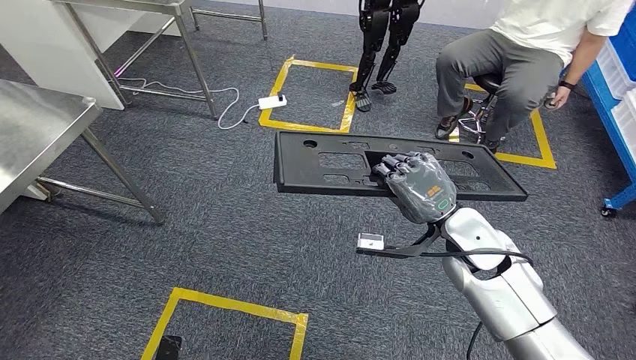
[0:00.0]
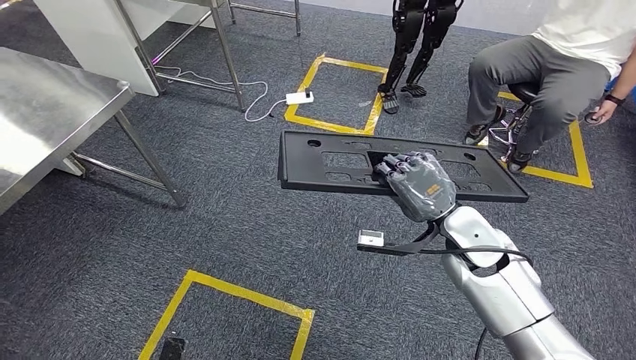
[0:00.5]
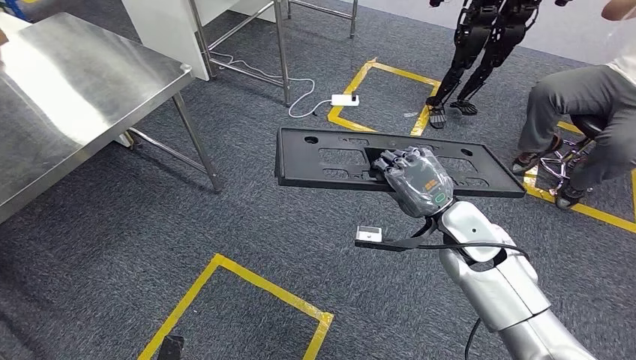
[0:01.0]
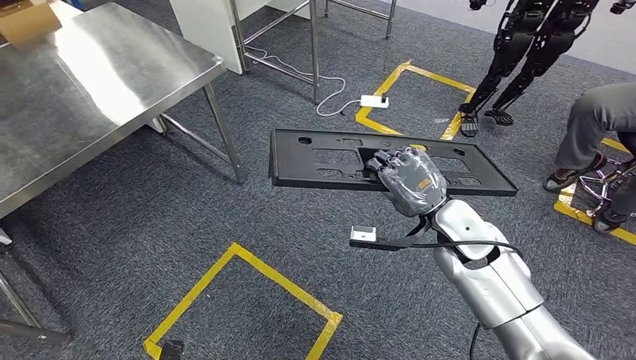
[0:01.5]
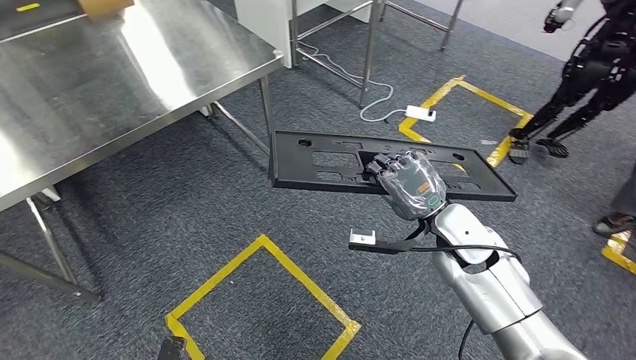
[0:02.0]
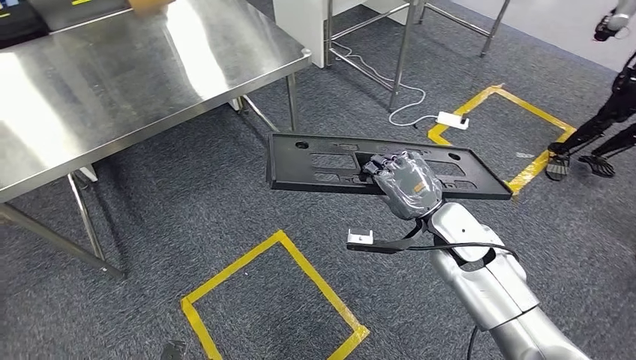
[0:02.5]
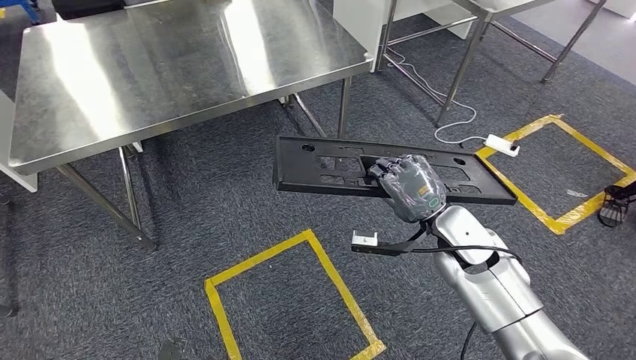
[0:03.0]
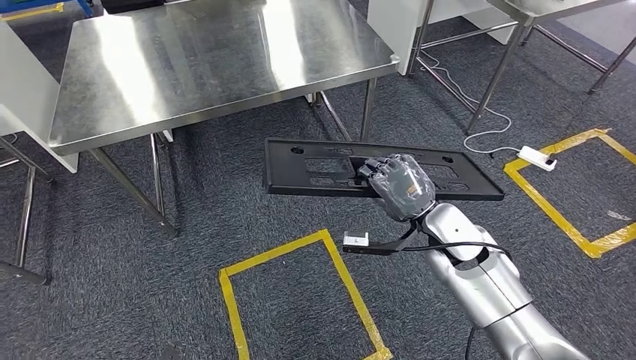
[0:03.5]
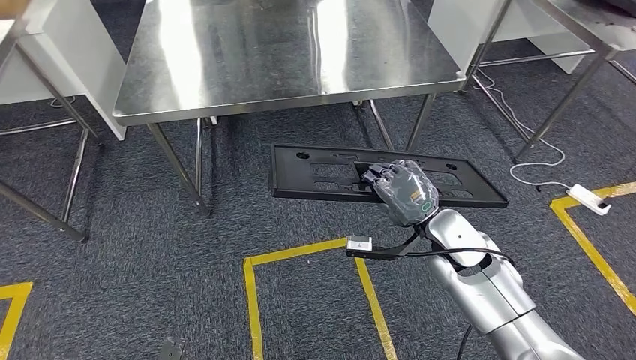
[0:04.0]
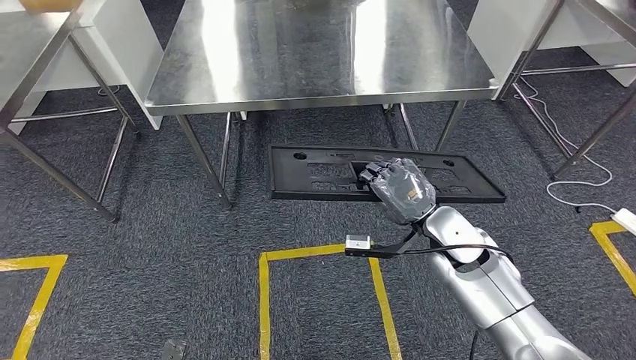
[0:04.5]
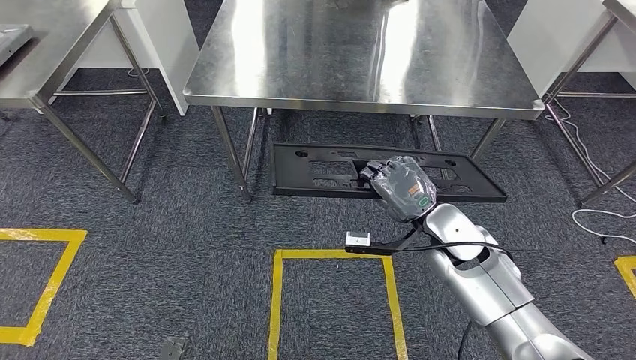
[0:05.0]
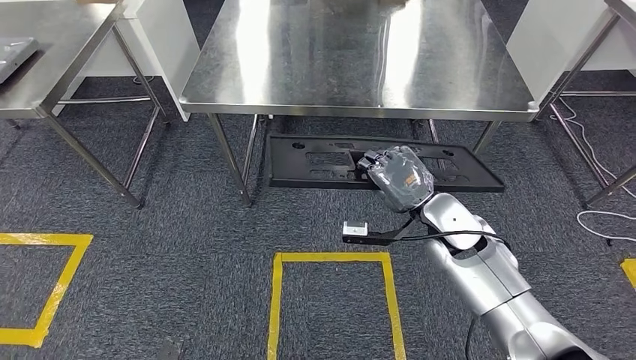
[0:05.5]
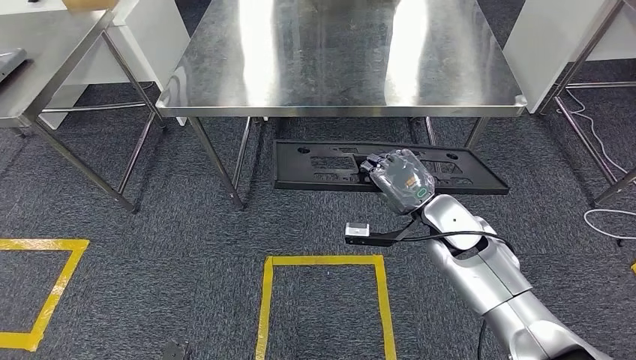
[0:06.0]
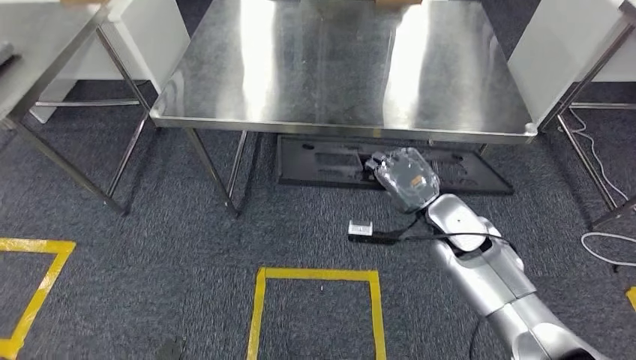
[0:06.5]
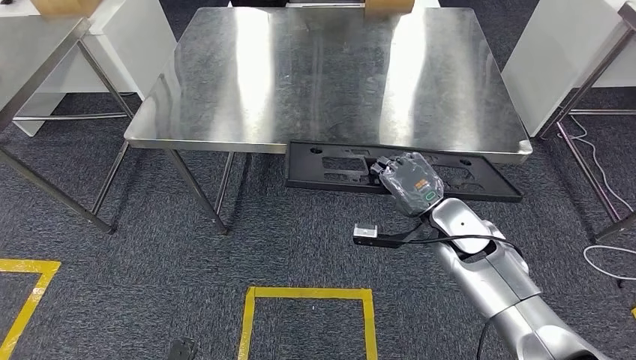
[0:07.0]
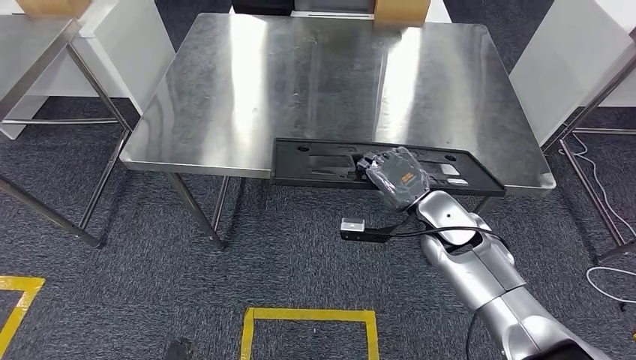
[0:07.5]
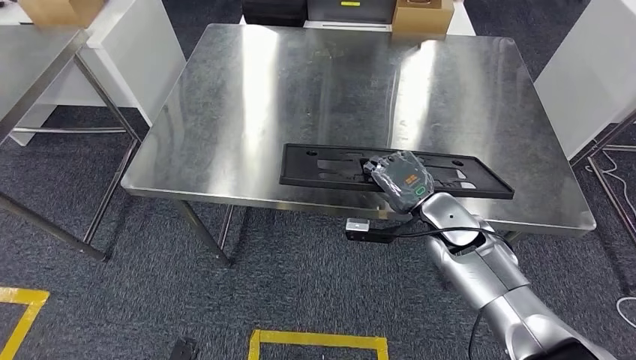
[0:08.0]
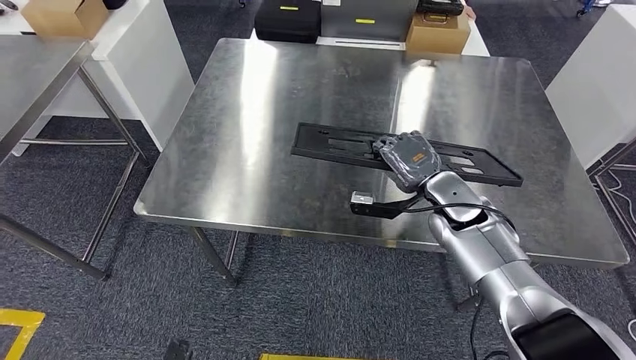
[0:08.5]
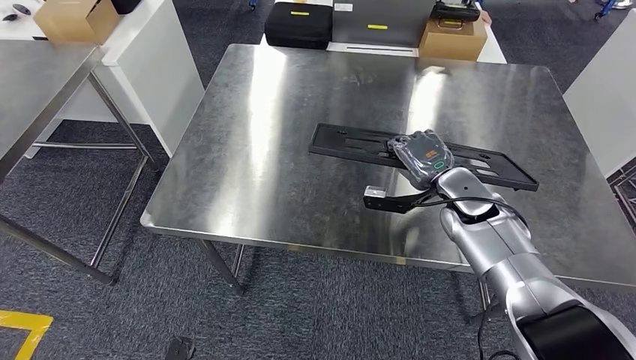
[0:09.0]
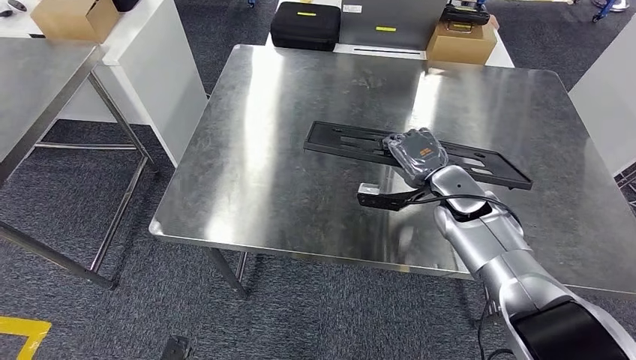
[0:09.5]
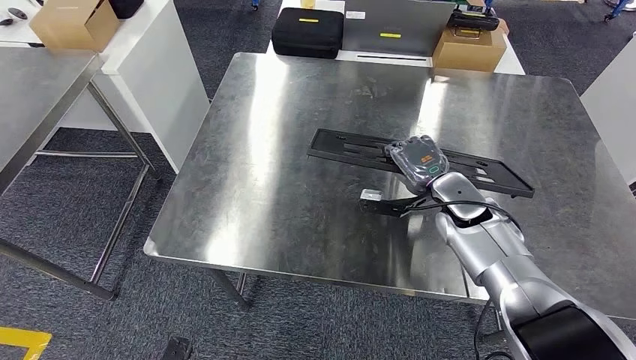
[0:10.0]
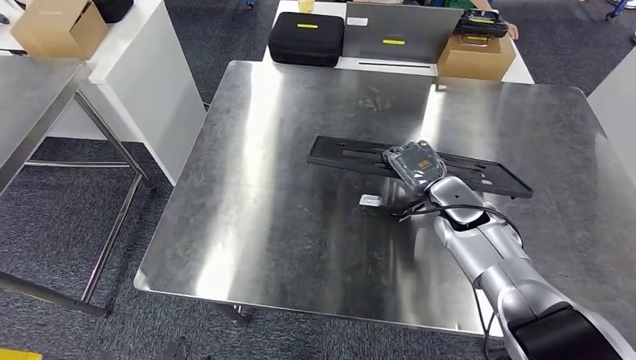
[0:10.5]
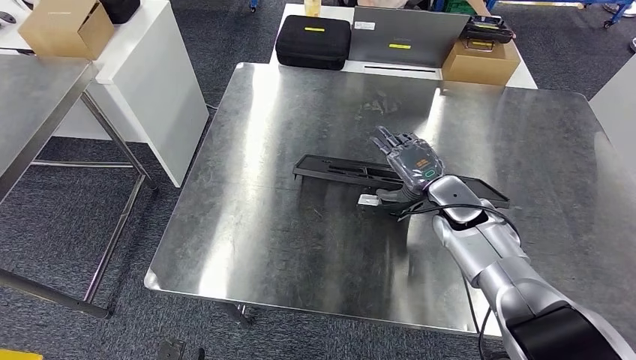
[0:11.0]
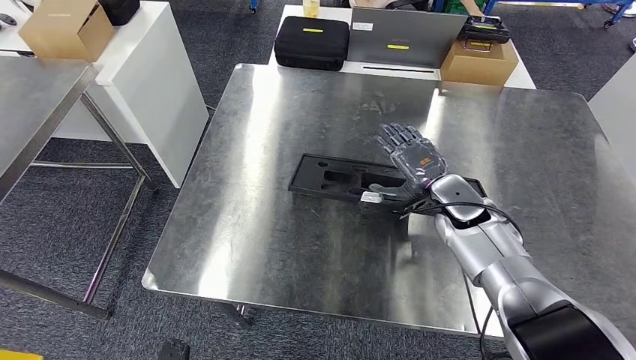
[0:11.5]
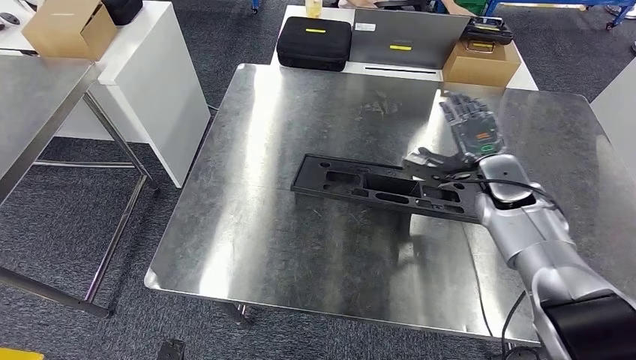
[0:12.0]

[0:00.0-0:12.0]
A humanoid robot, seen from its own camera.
Step, 0:00.0 to 0:07.5: Move the large material to the workbench.

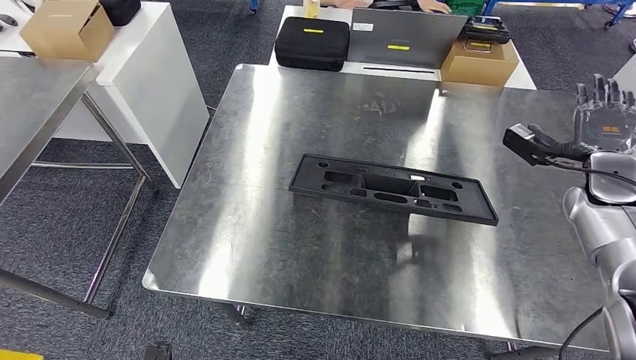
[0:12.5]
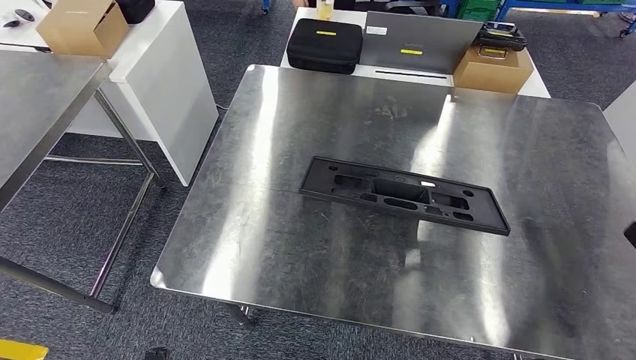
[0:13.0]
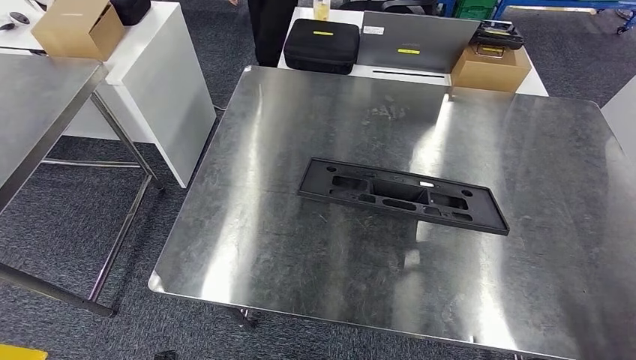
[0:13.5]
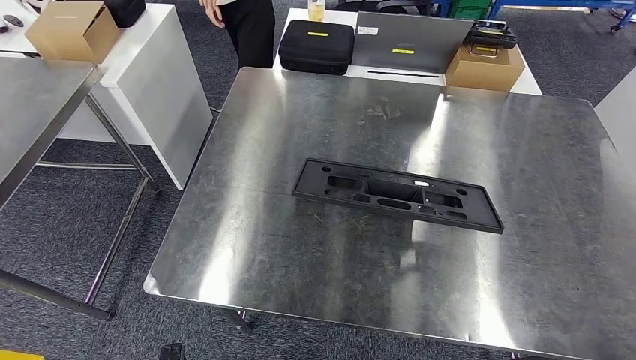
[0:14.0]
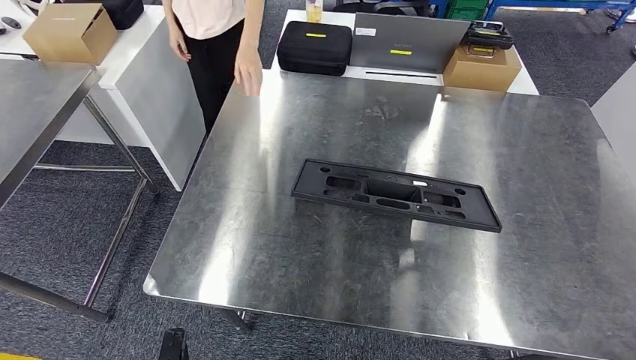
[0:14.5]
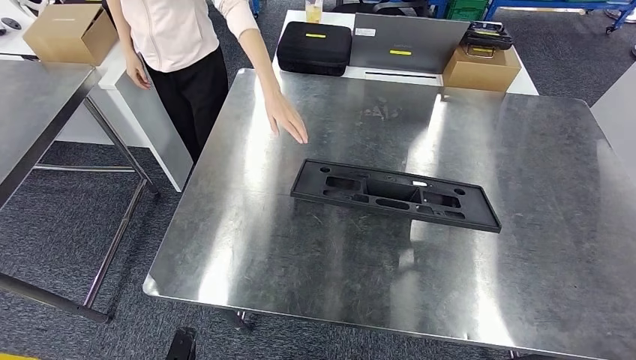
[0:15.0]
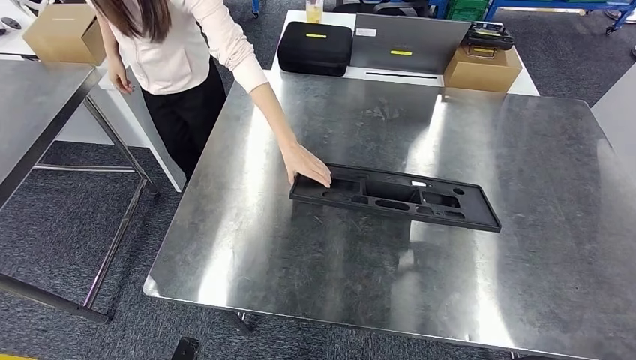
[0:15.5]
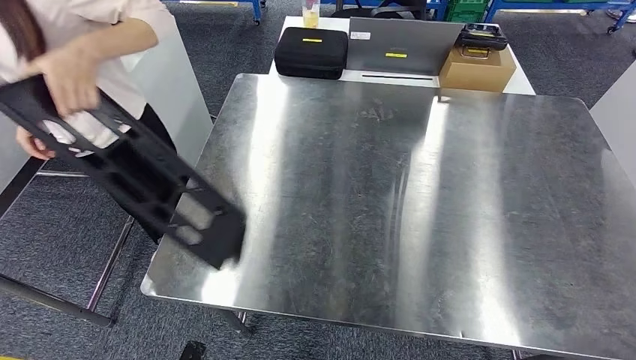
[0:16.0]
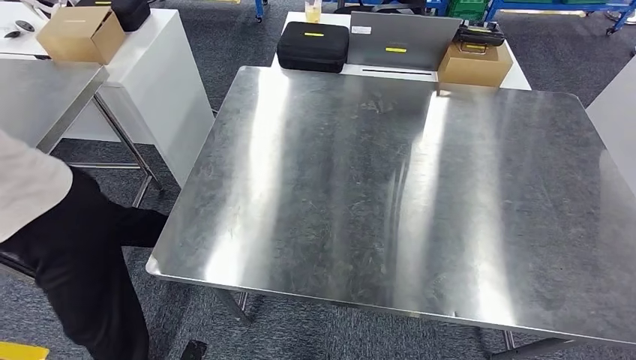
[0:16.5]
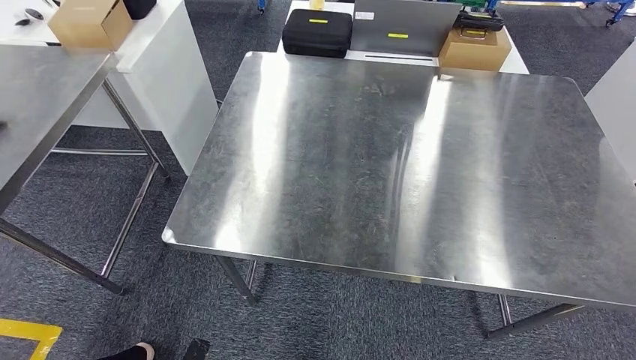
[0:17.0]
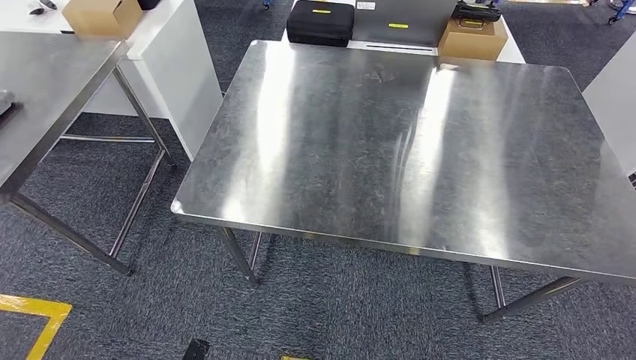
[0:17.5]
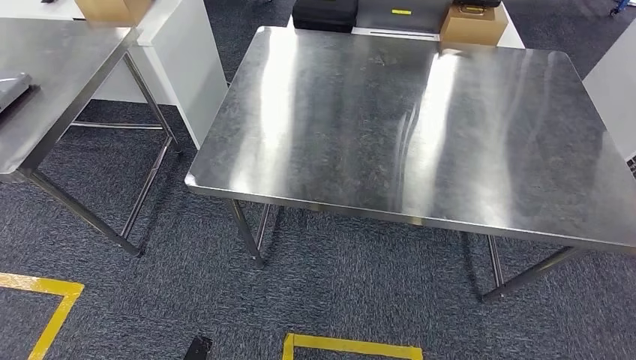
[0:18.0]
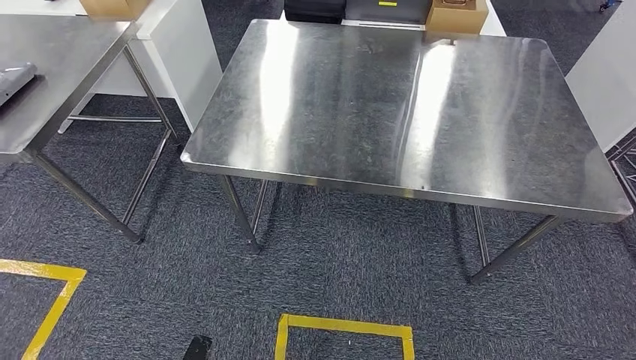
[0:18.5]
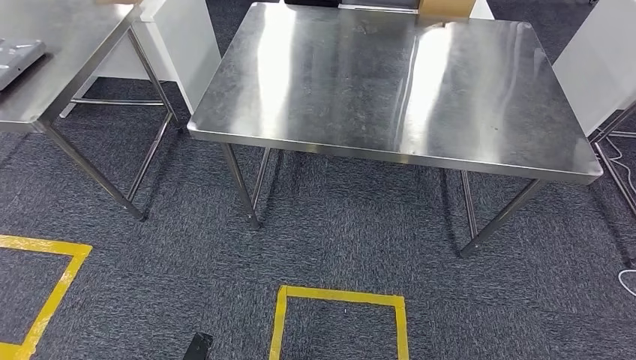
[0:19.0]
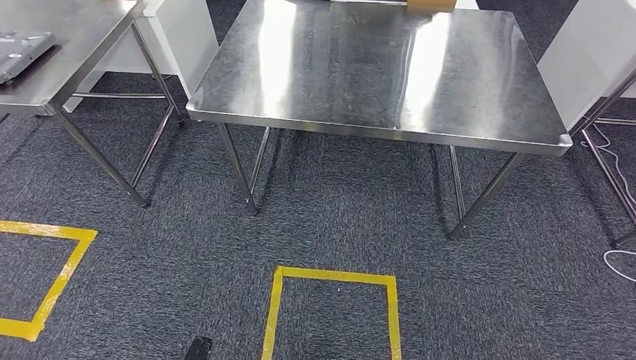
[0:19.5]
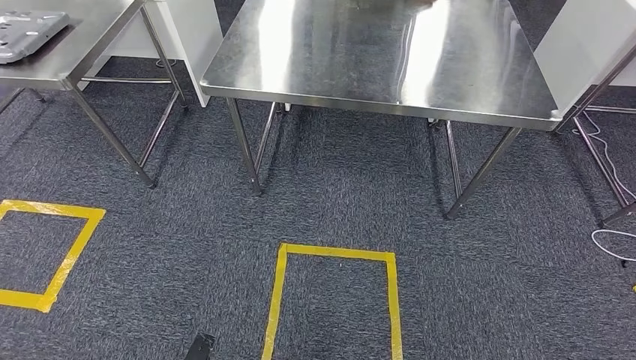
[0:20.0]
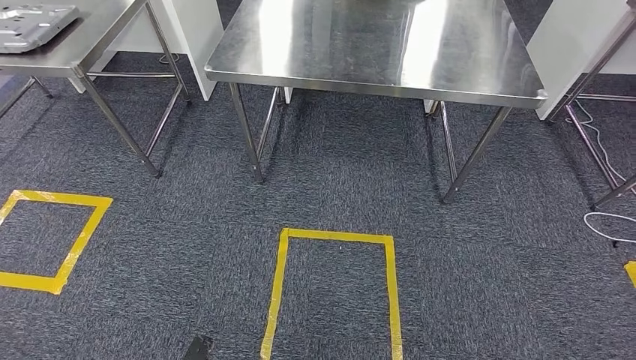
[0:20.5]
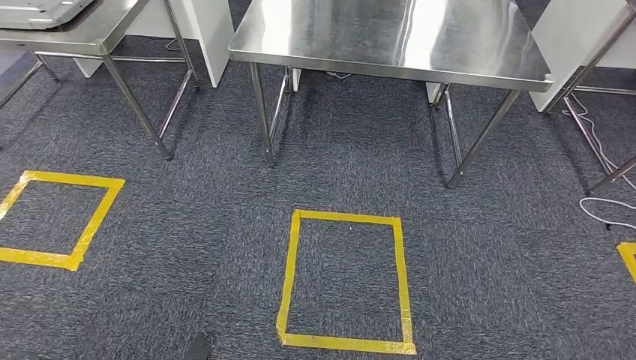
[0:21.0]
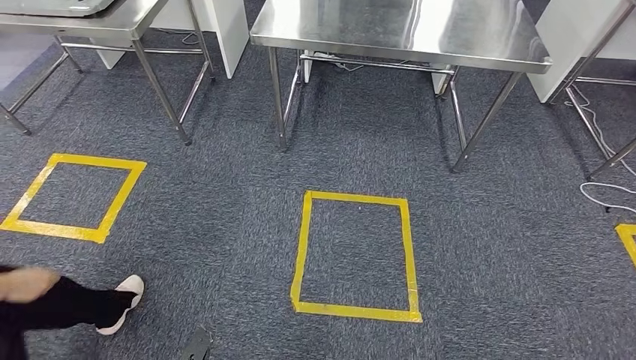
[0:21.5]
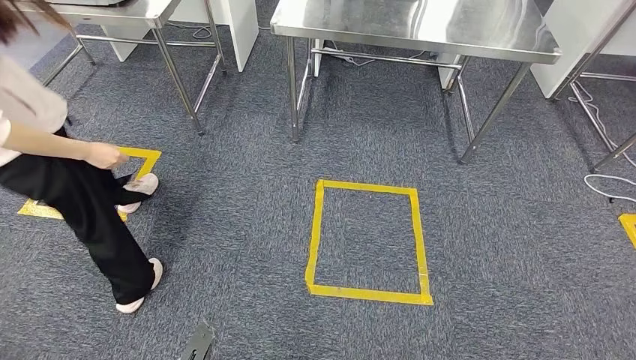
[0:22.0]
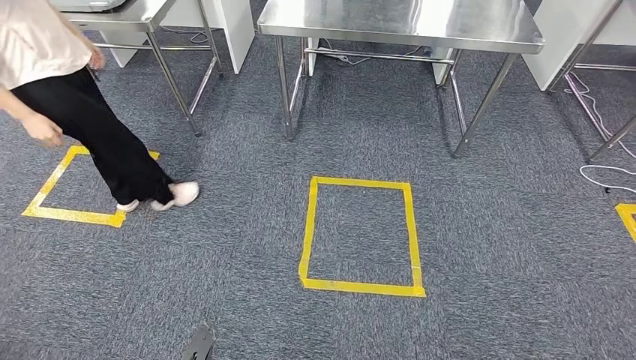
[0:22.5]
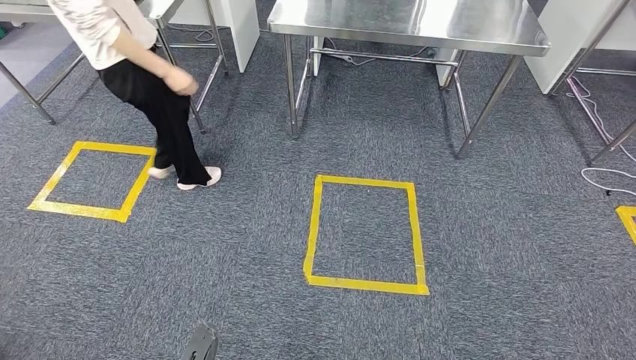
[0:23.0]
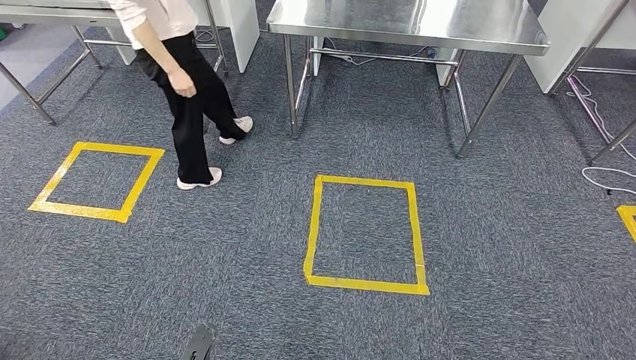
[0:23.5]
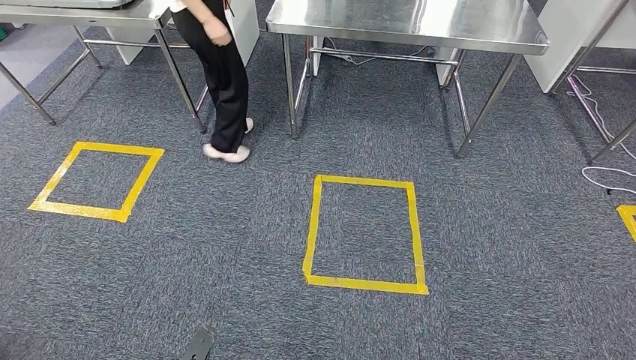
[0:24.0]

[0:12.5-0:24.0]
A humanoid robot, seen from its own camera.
Step, 0:12.5 to 0:17.0: Insert the large material into the corresponding slot on the workbench.
